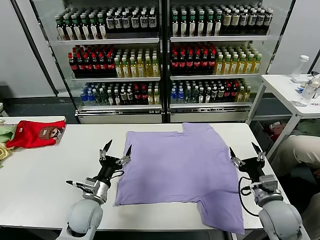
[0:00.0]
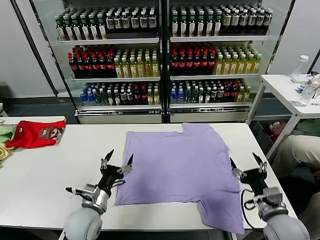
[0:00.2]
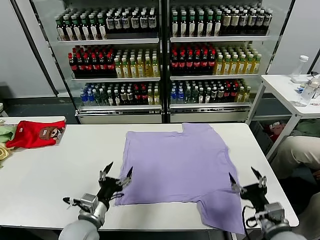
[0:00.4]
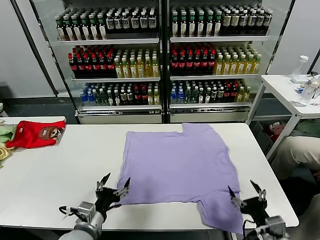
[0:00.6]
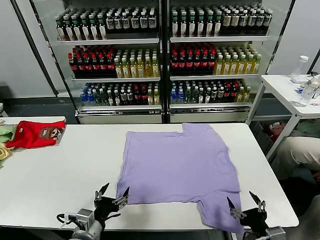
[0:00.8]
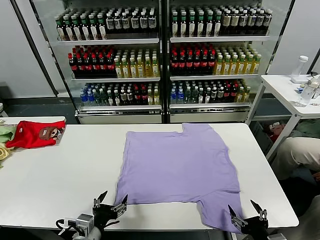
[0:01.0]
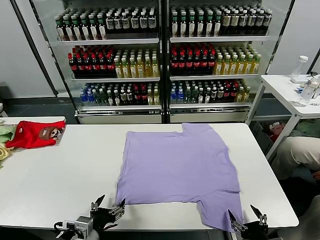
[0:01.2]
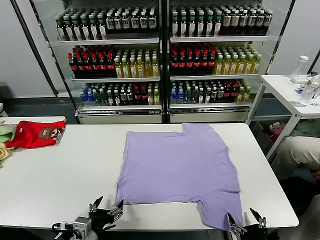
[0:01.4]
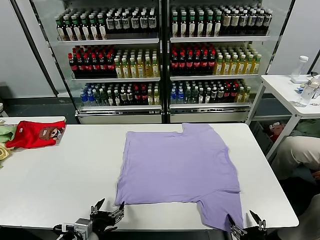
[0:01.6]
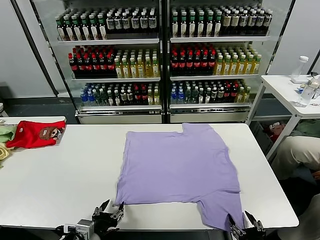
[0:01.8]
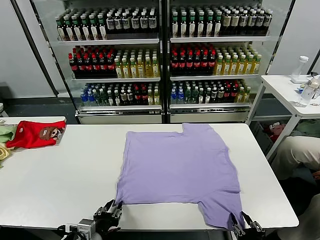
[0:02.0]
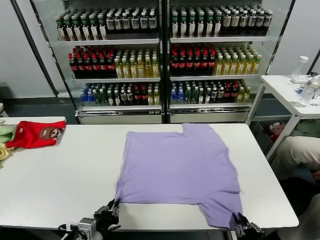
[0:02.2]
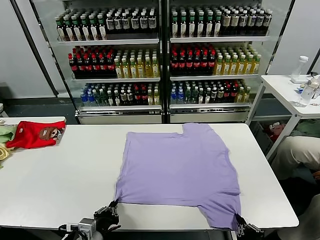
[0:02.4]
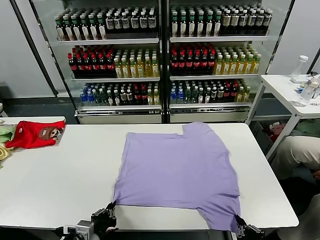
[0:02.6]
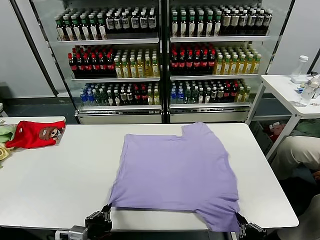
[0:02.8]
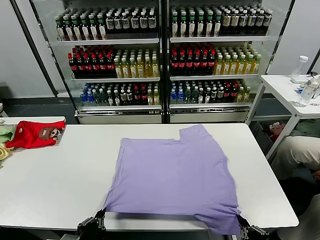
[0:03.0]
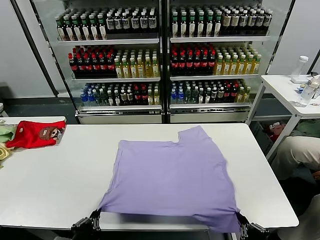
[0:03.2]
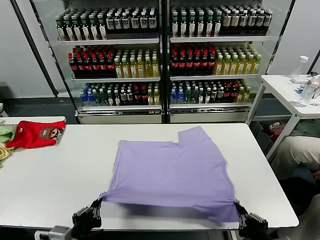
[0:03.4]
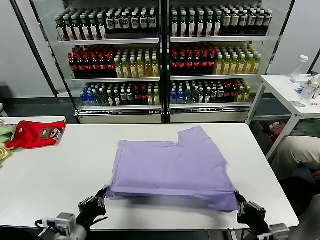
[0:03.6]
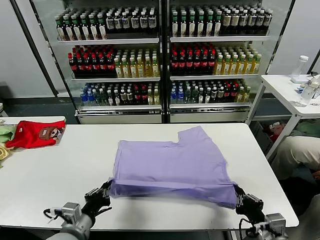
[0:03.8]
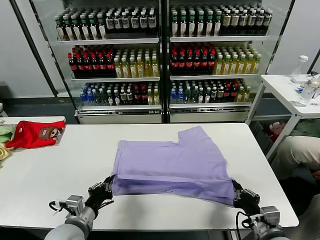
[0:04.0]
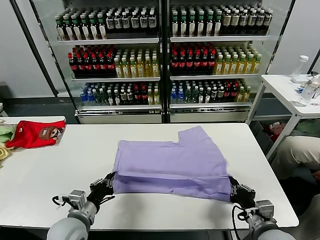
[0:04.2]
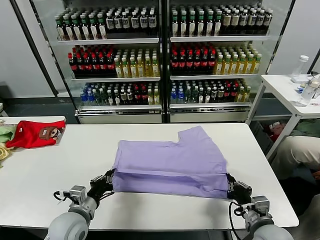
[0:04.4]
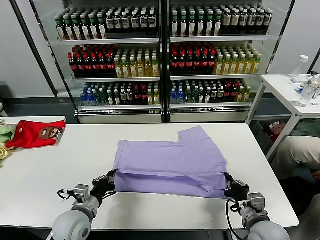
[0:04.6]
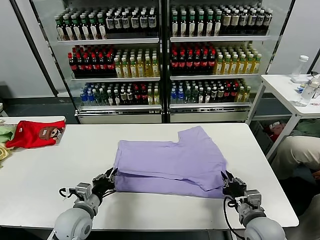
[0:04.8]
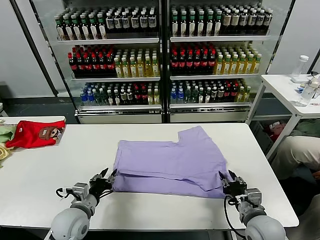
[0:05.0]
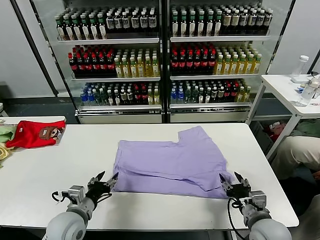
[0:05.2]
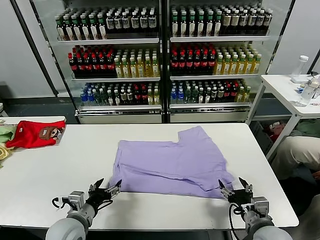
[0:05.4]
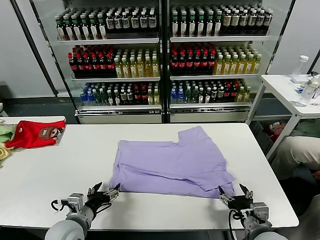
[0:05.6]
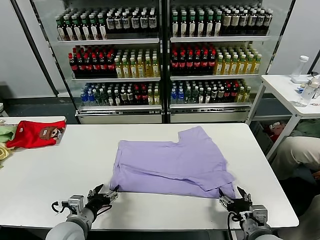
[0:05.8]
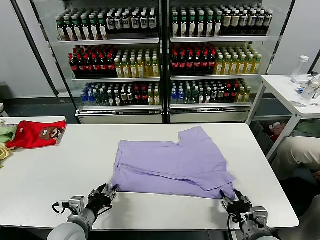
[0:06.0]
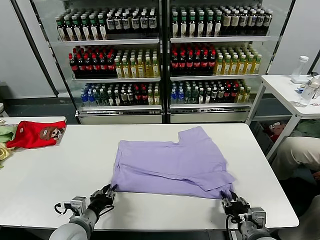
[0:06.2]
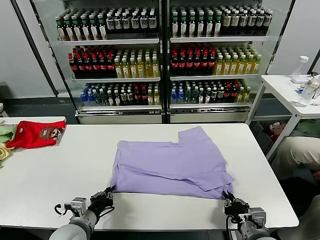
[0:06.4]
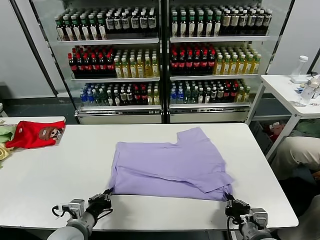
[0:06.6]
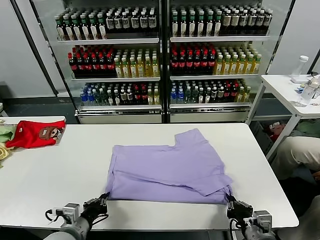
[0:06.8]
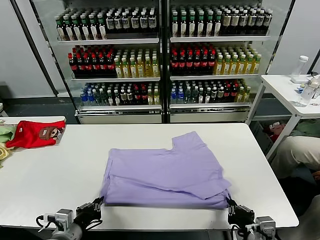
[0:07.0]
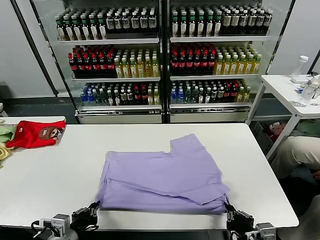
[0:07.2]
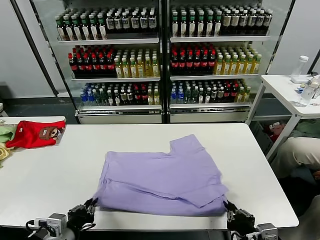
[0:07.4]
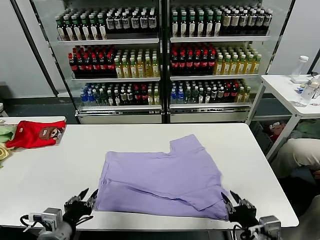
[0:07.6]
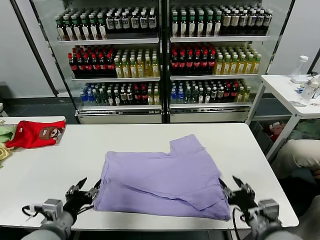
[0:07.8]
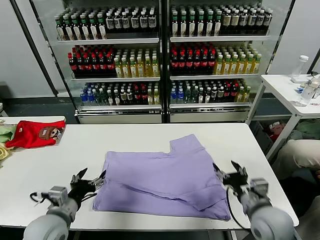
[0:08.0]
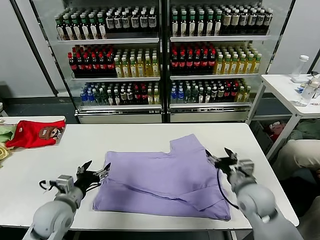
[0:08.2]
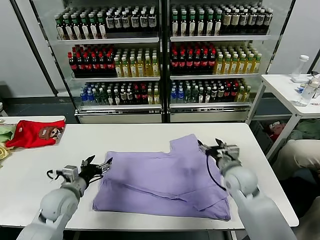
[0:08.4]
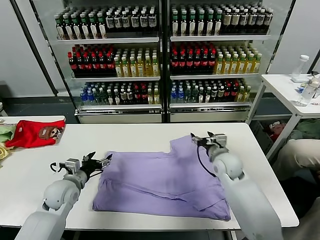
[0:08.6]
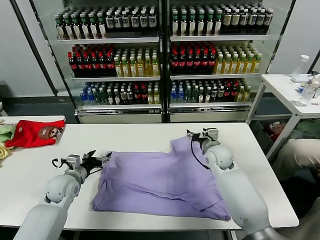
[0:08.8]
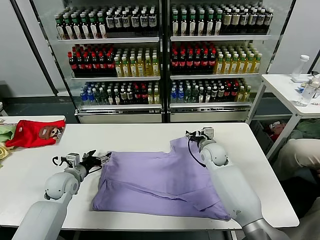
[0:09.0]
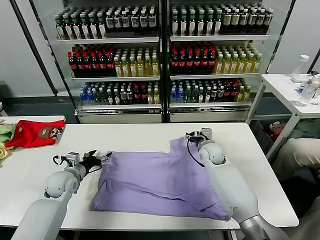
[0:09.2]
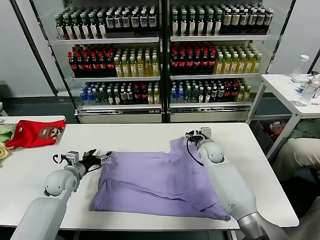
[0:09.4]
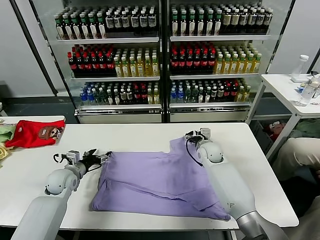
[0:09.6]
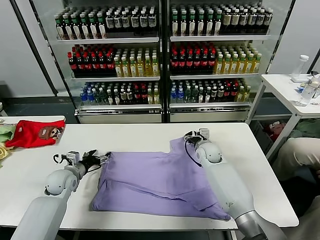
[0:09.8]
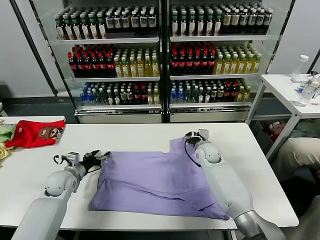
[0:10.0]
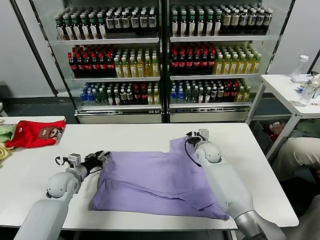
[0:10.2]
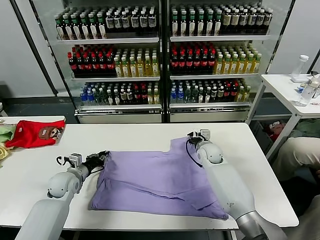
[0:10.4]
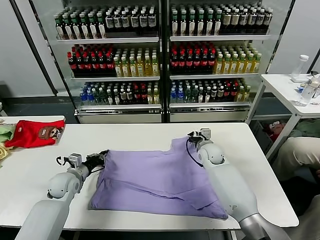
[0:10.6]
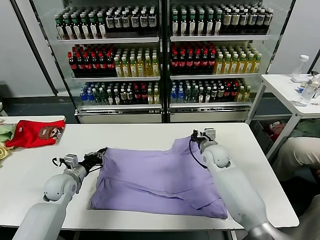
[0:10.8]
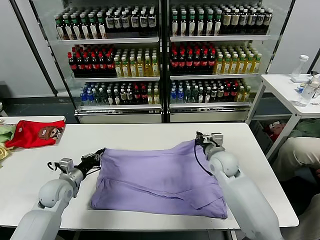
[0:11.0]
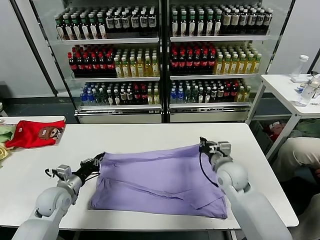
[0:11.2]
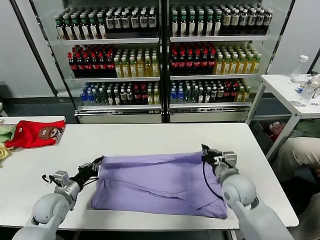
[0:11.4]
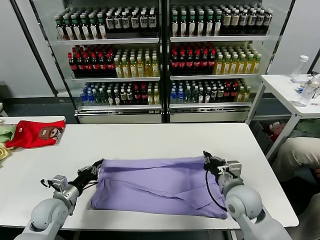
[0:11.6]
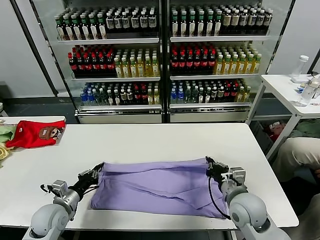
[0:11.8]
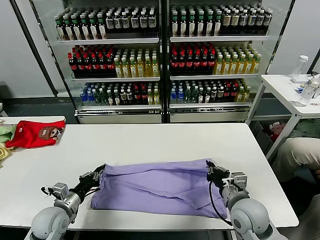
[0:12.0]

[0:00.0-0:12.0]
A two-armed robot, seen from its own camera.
Task of the whole recording: fold and organize the clothes.
Step, 0:00.0 to 0:02.2: use both grippers simultaneously to clamp the lower edge of the clothing fabric.
Step, 0:02.6 to 0:05.2: use both grippers to drag the lower edge of the fabric forward and fold it over the upper edge.
Step, 0:05.4 to 0:07.6: Drag the clothes downward with both gripper.
Step, 0:08.0 to 0:10.4: use both grippers simultaneously to clamp the upper edge of the clothing fabric.
0:01.6 to 0:03.0: The right gripper goes roughly 5 cm upward, and closes up. Meanwhile the left gripper goes approximately 5 cm backward, and closes up.
0:03.0 to 0:04.4: The two grippers go some 15 cm forward.
0:04.4 to 0:06.0: The right gripper opens up; the left gripper opens.
0:06.0 to 0:07.6: The right gripper heads upward, covering about 5 cm, and closes, then opens again. Meanwhile the left gripper is displaced upward and backward by some 10 cm, and closes, then reopens.
0:07.6 to 0:09.0: The right gripper shifts roughly 35 cm forward, and opens its fingers, while the left gripper goes some 25 cm forward, and opens.
0:09.0 to 0:10.4: The right gripper closes its fingers, while the left gripper closes up.
0:10.4 to 0:12.0: The right gripper goes approximately 25 cm backward; the left gripper goes about 15 cm backward.

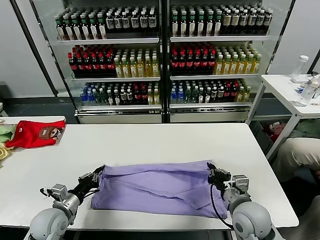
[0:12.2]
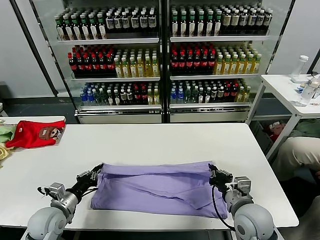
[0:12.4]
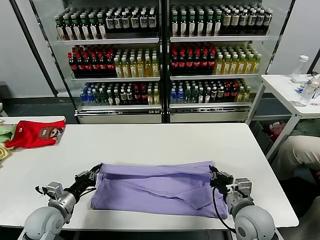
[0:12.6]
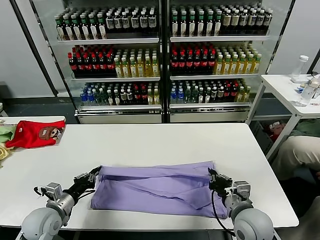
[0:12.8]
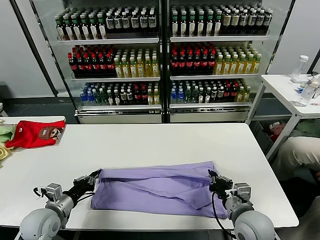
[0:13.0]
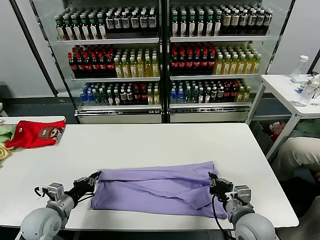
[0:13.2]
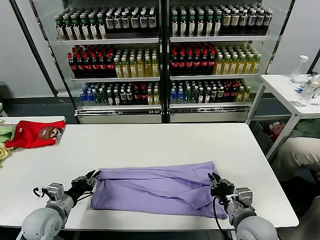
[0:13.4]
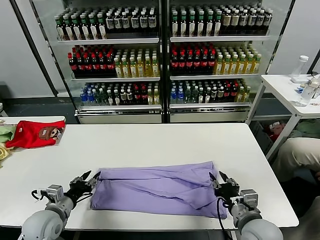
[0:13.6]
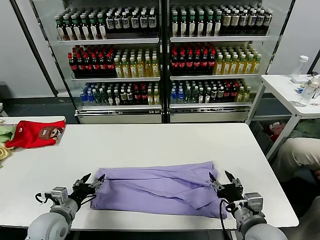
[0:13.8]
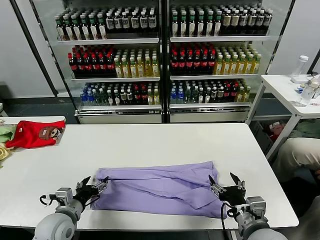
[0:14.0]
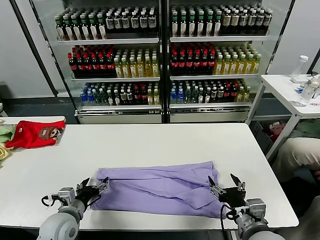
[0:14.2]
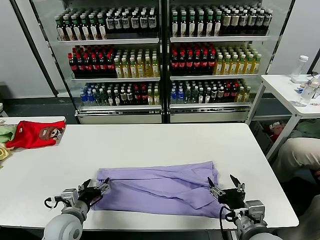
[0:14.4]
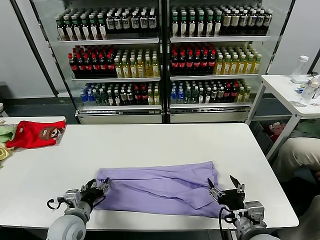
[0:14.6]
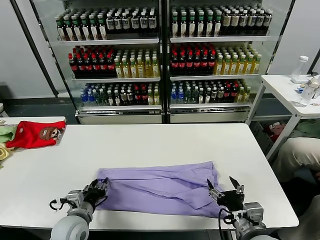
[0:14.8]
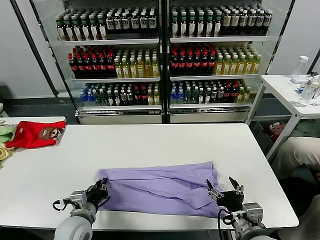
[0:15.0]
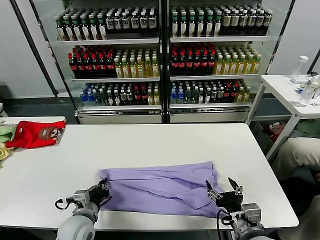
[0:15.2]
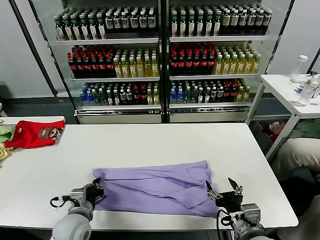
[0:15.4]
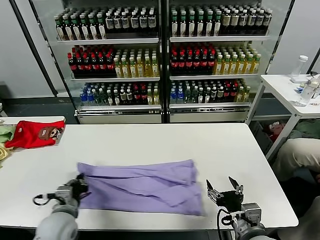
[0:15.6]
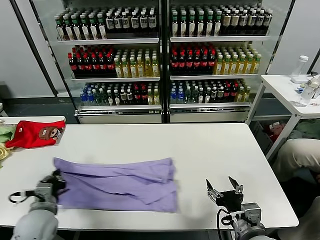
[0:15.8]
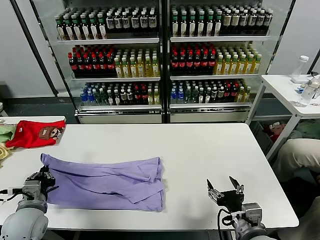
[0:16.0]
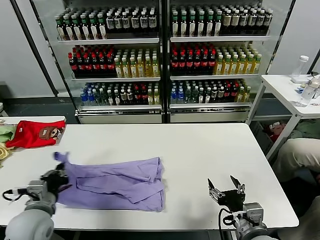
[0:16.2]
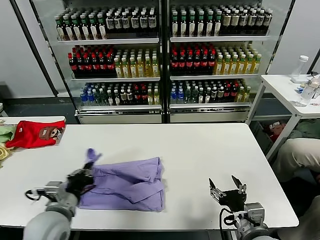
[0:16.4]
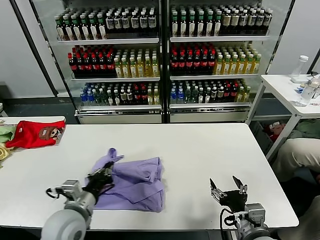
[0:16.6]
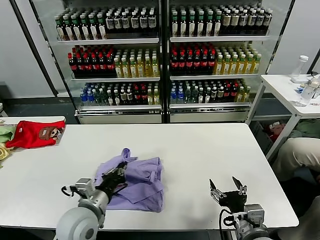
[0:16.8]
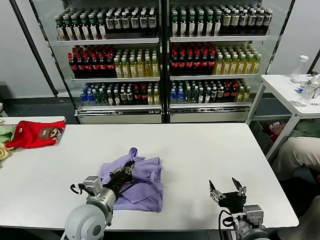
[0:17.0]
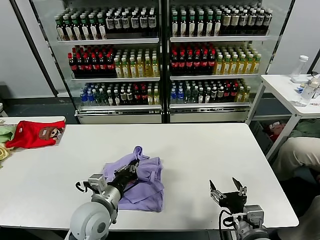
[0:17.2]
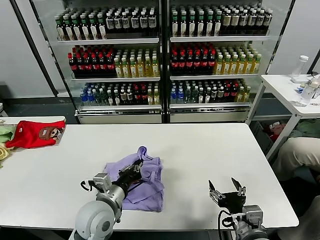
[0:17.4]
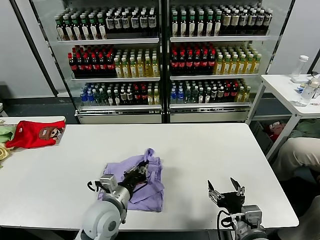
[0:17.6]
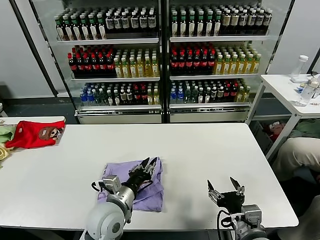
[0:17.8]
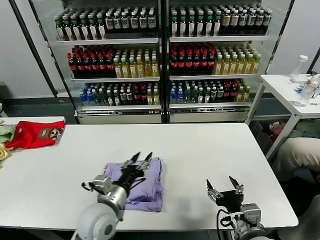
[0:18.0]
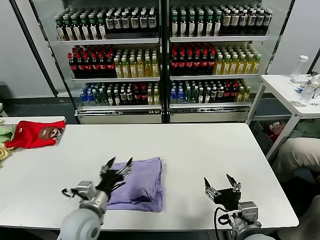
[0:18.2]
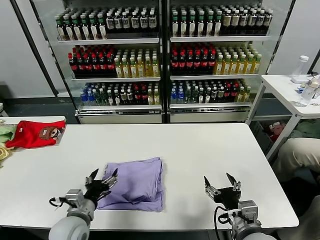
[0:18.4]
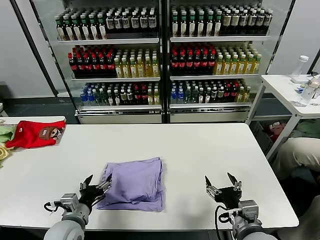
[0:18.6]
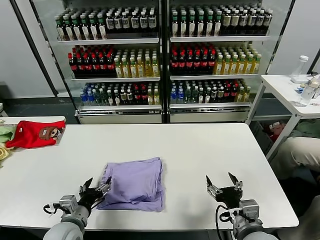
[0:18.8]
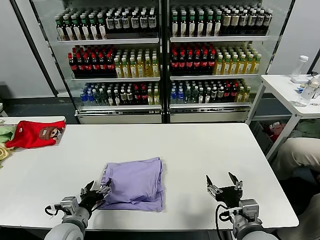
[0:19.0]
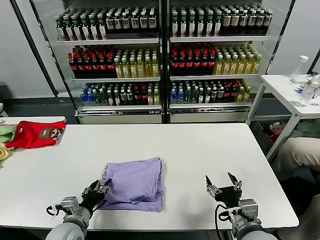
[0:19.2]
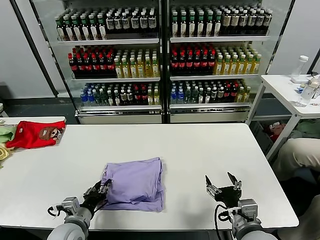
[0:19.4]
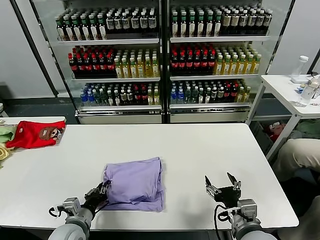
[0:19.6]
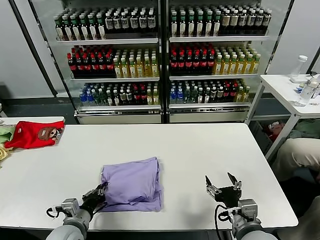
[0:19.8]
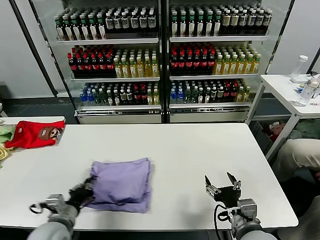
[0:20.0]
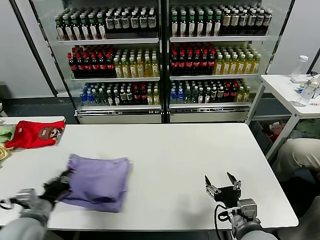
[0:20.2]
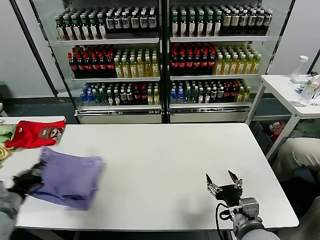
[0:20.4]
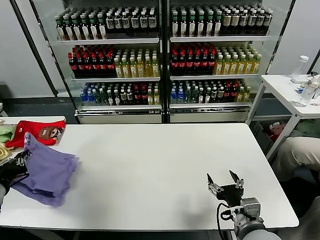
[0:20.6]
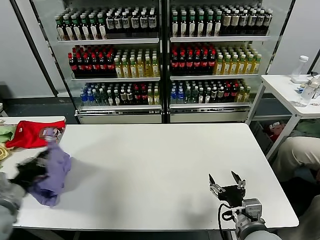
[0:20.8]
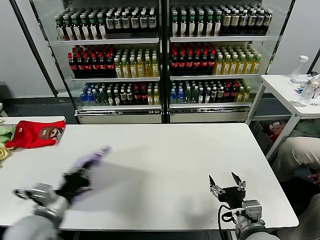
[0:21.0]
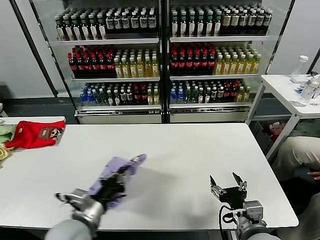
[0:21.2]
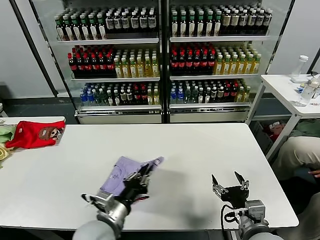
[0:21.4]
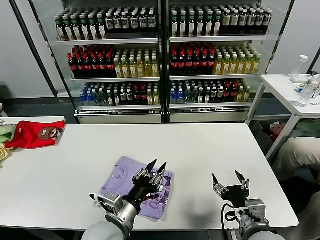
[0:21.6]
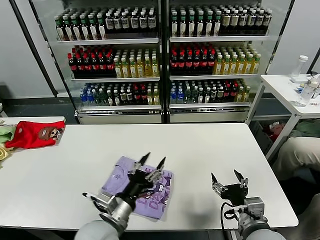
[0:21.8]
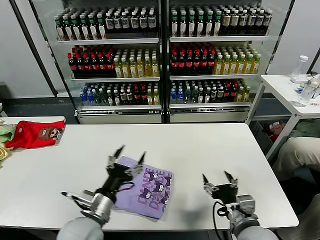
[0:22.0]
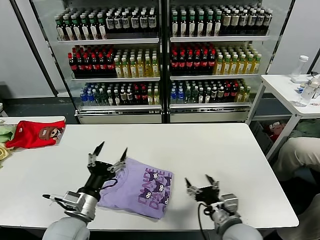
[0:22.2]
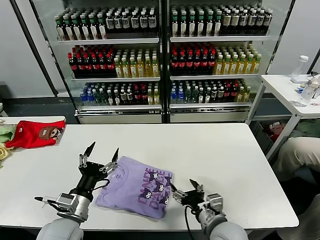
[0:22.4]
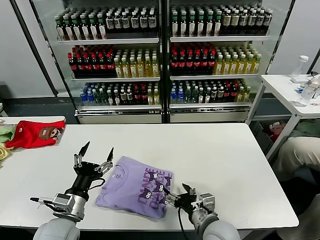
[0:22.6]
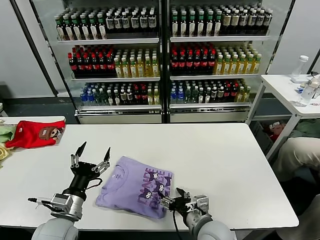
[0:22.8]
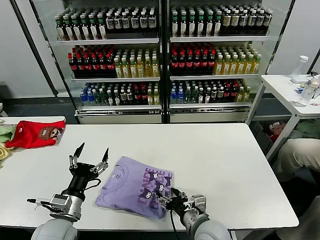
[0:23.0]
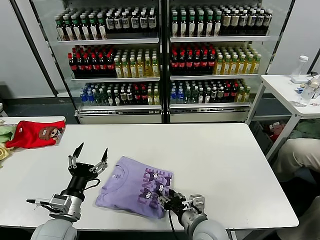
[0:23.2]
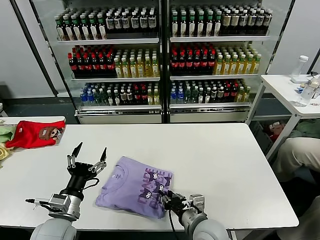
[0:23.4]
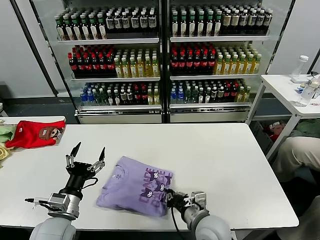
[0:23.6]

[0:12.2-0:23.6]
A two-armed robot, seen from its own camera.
Task of the whole recording: fold and organize the clothes.
Step, 0:12.2 to 0:13.8: use both grippers to drag the upper edge of the fabric backward and fold it over the lower edge.
Step, 0:14.0 to 0:15.0: use the left gripper to clamp the left edge of the fabric.
Step, 0:15.4 to 0:17.8: use the left gripper to drag the left edge of the fabric to the left and folds it over the right edge.
Step, 0:18.0 to 0:21.6: Flip the folded clothes over with left gripper.
0:12.2 to 0:13.6: The right gripper ends up some 5 cm from where it was, and opens; the left gripper opens its fingers.
0:13.6 to 0:15.0: The right gripper opens. The left gripper is displaced to the right by approximately 10 cm, and opens, then closes again.
0:15.0 to 0:16.4: The left gripper is displaced upward by approximately 10 cm, and goes to the left and returns, roughly 10 cm each way.
0:16.4 to 0:17.8: The left gripper moves to the right, about 15 cm, and opens up.
0:17.8 to 0:19.4: The left gripper heads to the left and downward, covering roughly 15 cm, and opens and closes again.
0:19.4 to 0:20.8: The left gripper shifts roughly 20 cm upward and to the left, and closes its fingers.
0:20.8 to 0:22.2: The left gripper heads to the right, covering about 20 cm, and opens up.
0:22.2 to 0:23.6: Both grippers travel together to the left, about 5 cm. The right gripper closes its fingers.
